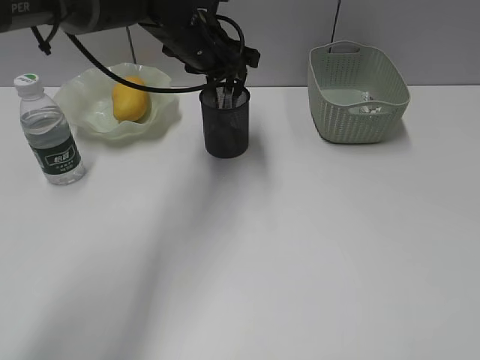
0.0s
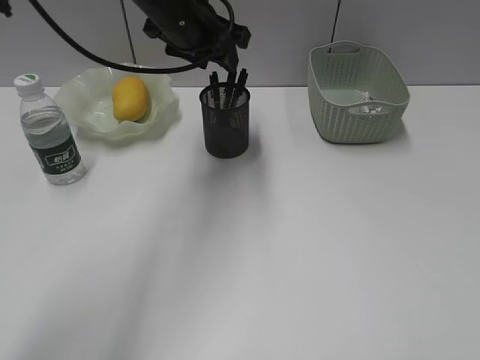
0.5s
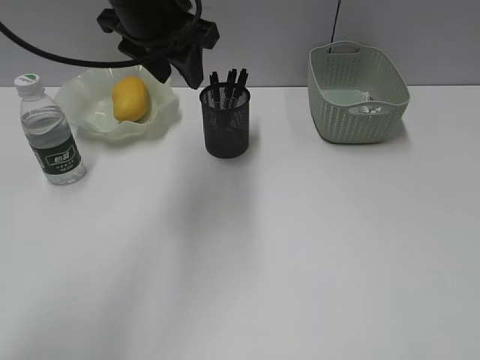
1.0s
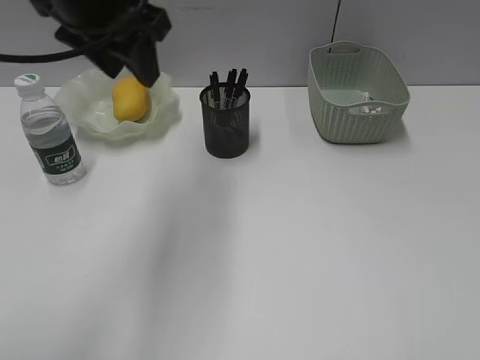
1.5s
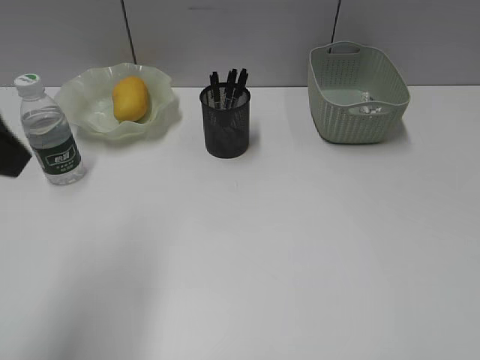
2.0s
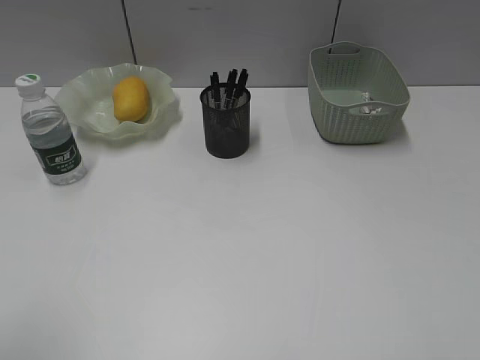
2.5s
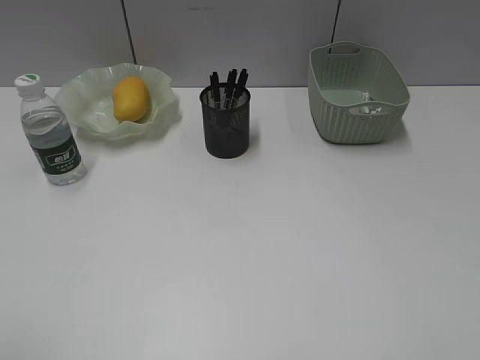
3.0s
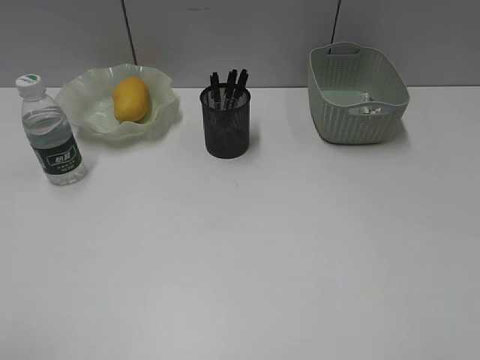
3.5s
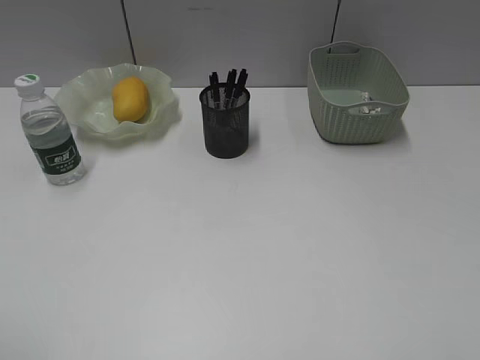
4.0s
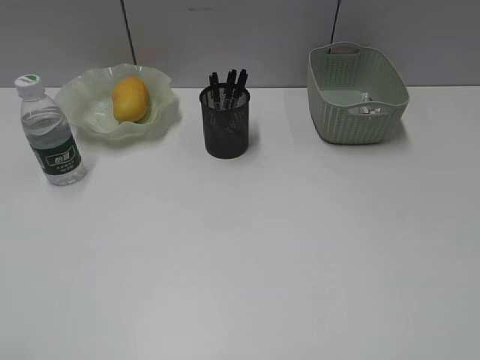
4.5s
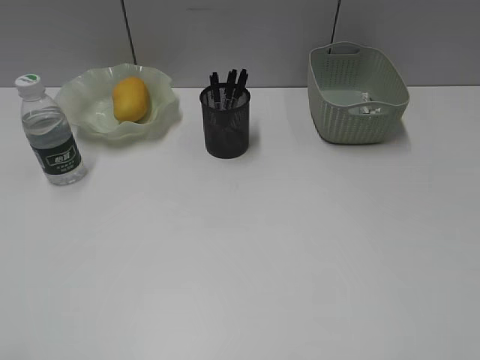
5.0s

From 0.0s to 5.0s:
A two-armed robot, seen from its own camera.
From 0.0s to 2.5s: The left gripper goes roughly 50 cm backward and to the left, and opens its fingers.
